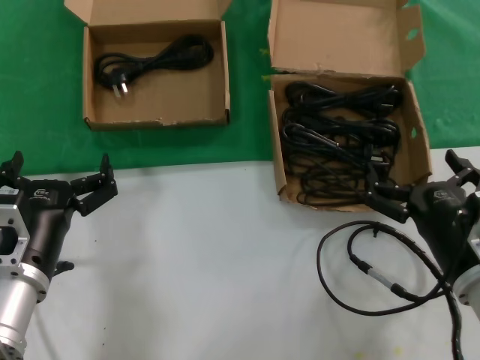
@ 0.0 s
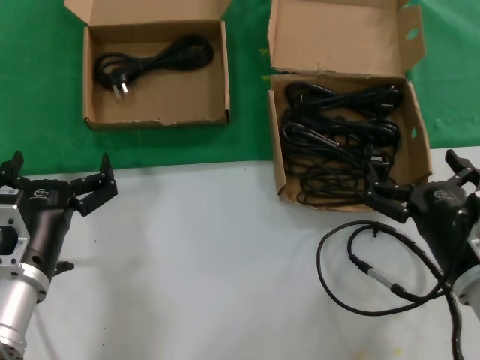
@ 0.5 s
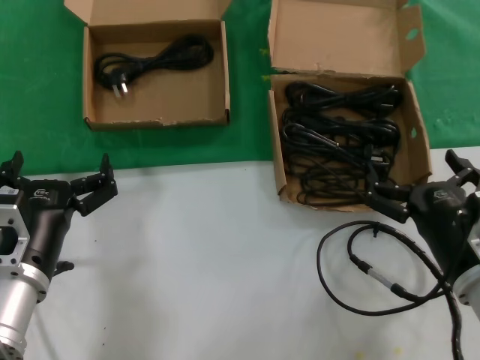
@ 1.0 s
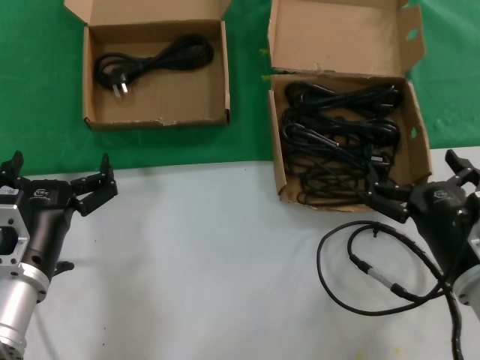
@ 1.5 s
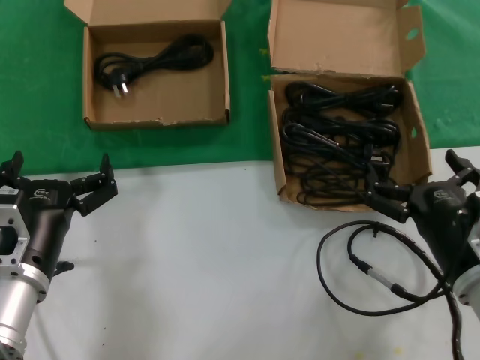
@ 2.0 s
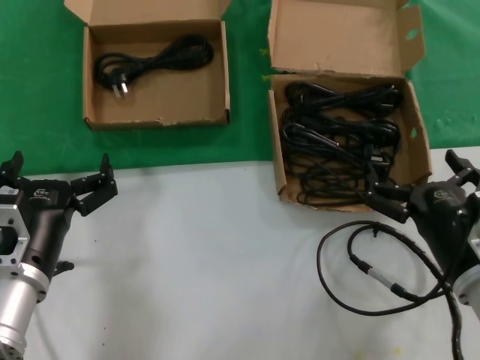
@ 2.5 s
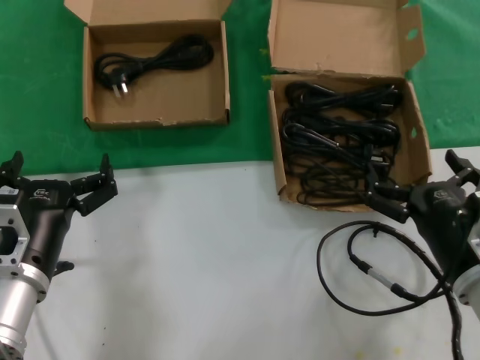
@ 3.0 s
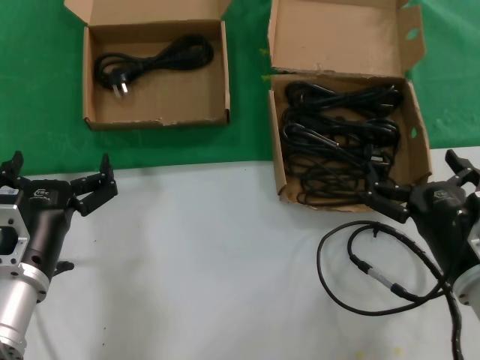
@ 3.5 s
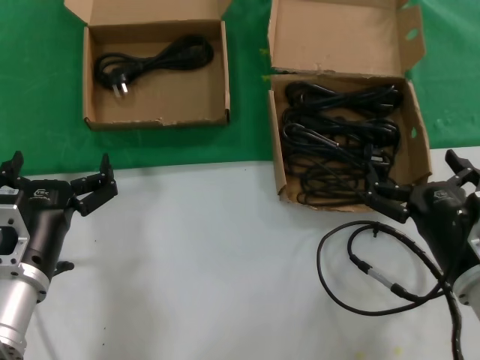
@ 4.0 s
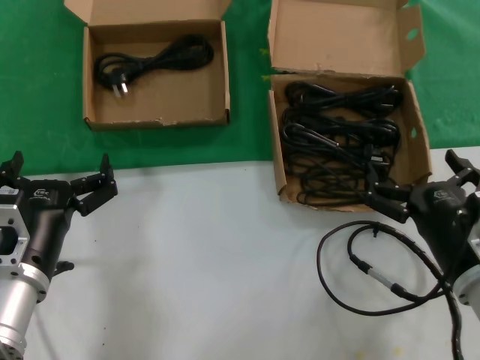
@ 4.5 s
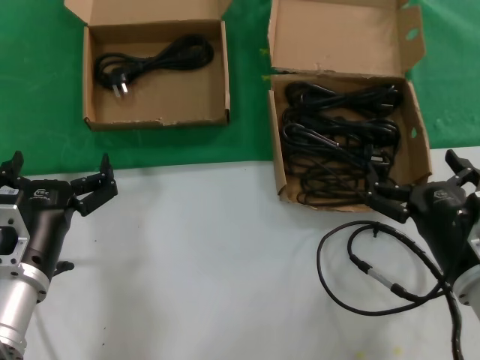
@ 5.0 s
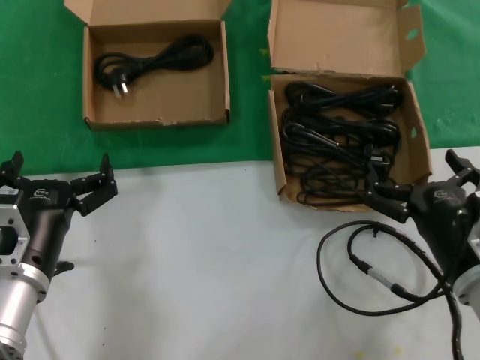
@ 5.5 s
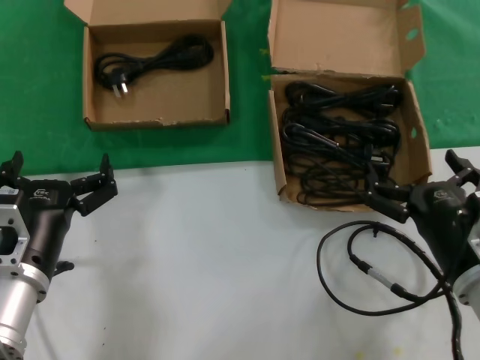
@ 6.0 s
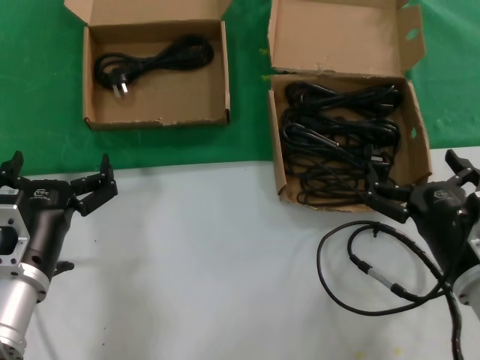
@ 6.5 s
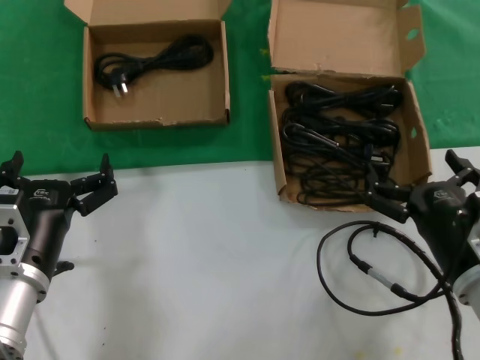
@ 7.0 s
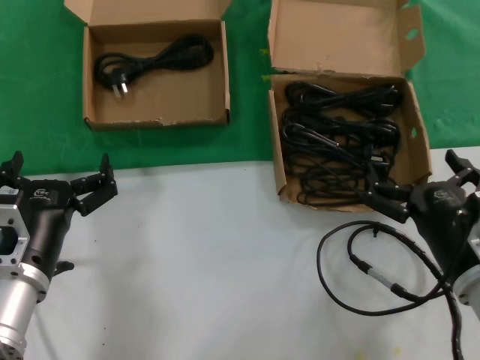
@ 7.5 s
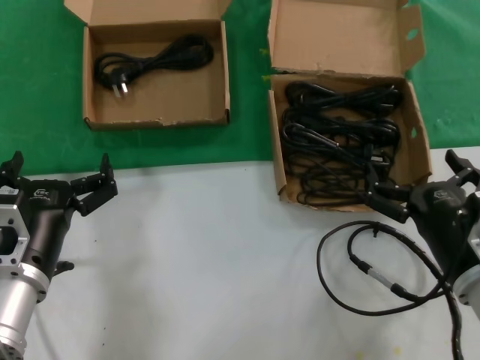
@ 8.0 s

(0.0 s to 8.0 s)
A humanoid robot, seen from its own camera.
Task of the whole recording: take the parts from the box containing them and put them into an empty box.
0.0 s - 8.0 s: Neither hand changes place.
